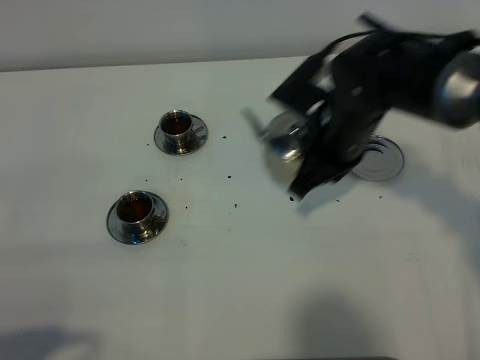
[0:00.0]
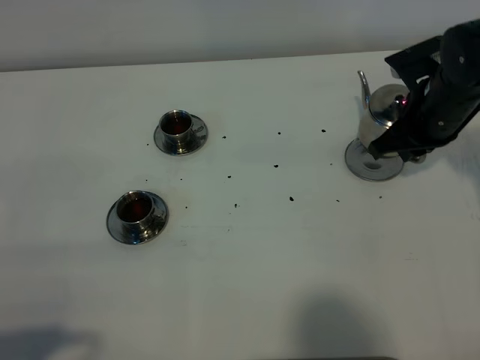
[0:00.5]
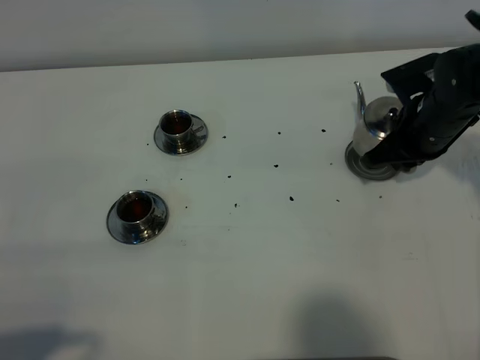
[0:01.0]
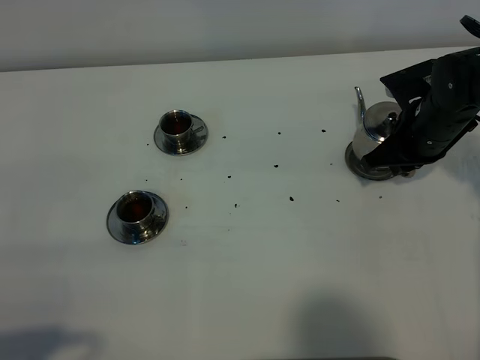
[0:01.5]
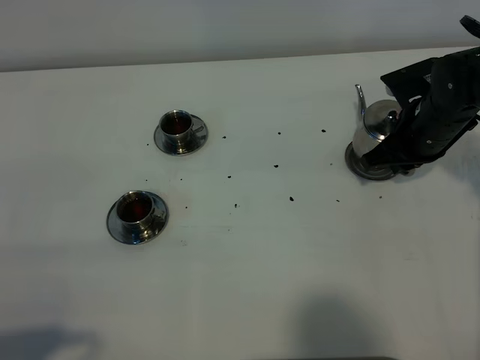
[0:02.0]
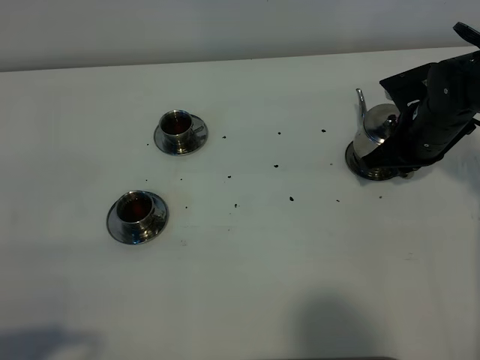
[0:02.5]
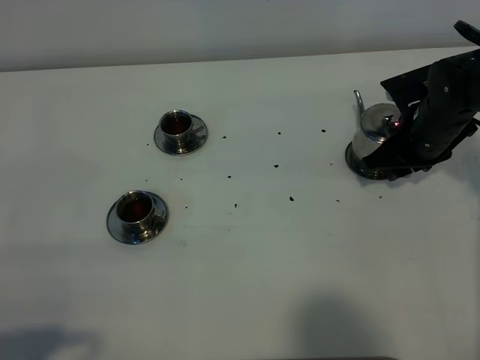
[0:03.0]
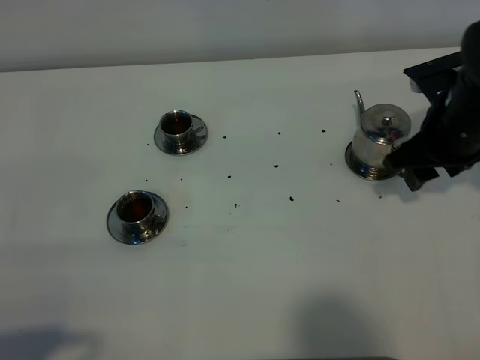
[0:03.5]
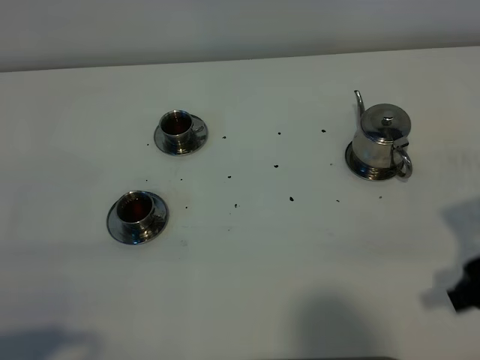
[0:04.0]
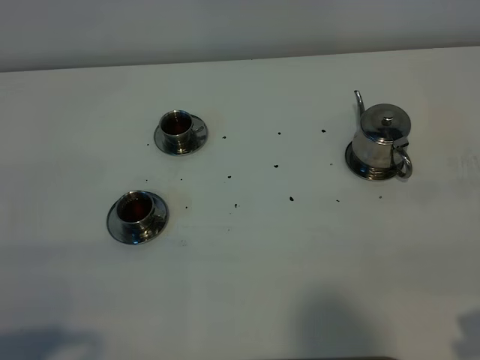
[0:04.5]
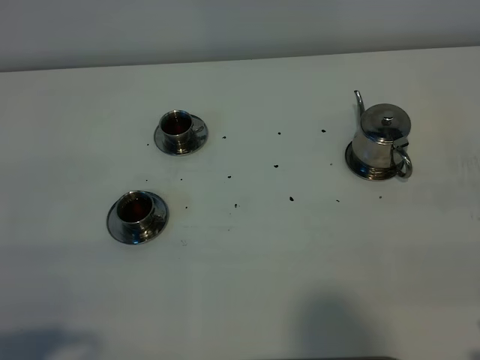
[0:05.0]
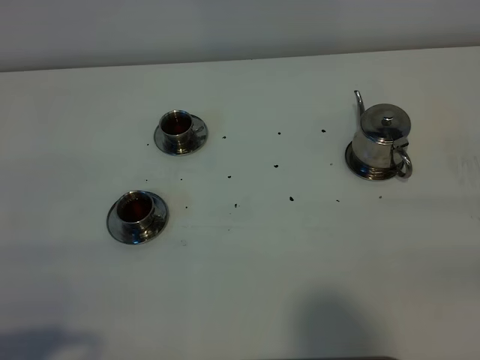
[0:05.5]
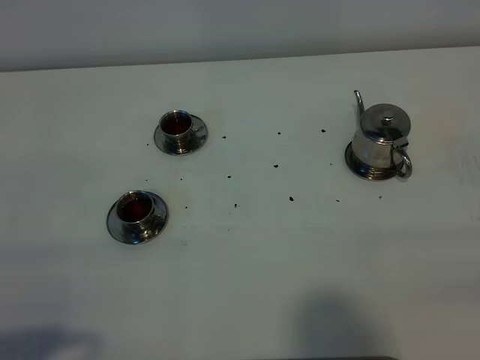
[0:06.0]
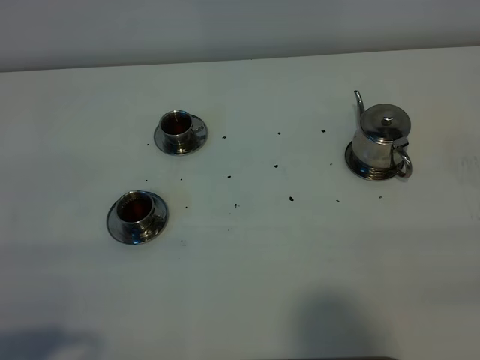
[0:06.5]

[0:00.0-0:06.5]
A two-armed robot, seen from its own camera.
Task of the whole recording: grasp the stainless steel teapot and pour the tea into the two stainless steel teacups one by one, put the stainless steel teapot back in its original place.
0:00.0 to 0:02.0: The right gripper moves to the right and downward, approximately 10 cm.
0:02.0 to 0:04.5: The right gripper goes roughly 30 cm backward, and opens.

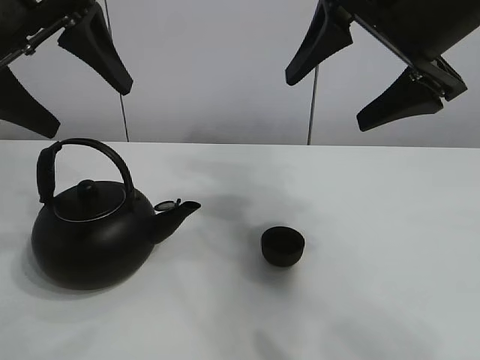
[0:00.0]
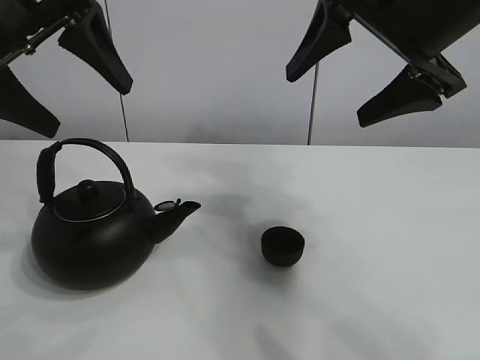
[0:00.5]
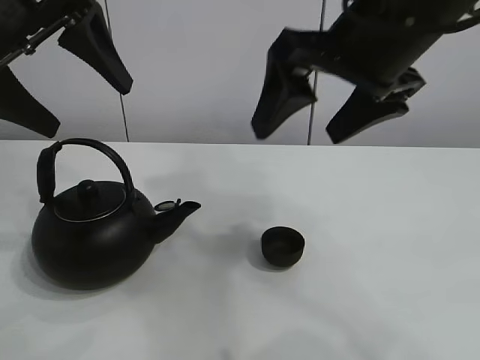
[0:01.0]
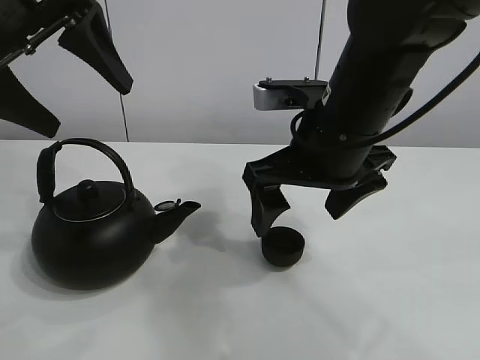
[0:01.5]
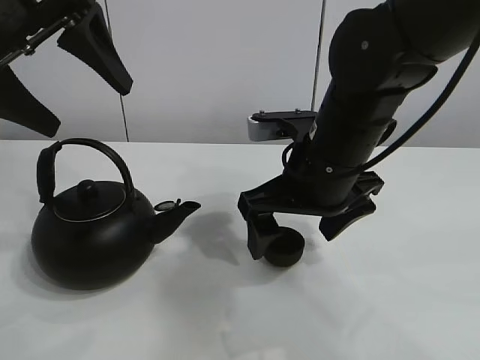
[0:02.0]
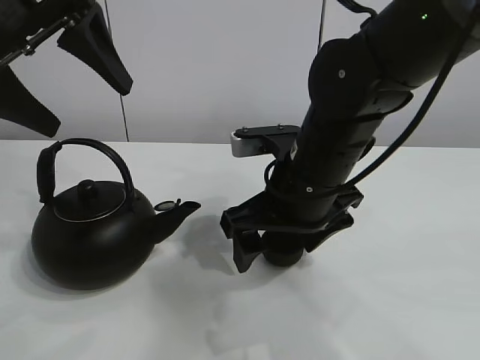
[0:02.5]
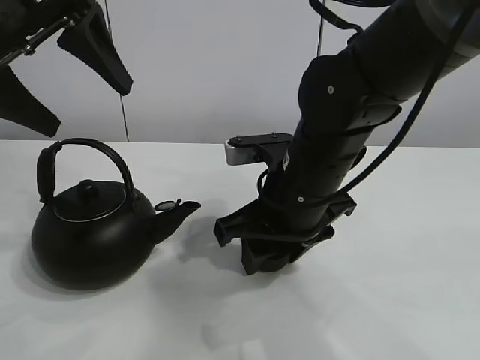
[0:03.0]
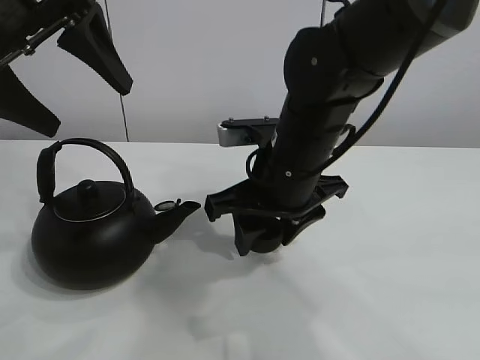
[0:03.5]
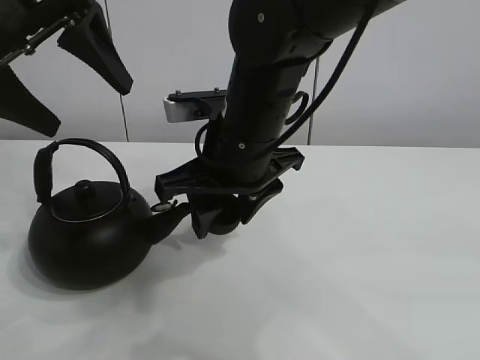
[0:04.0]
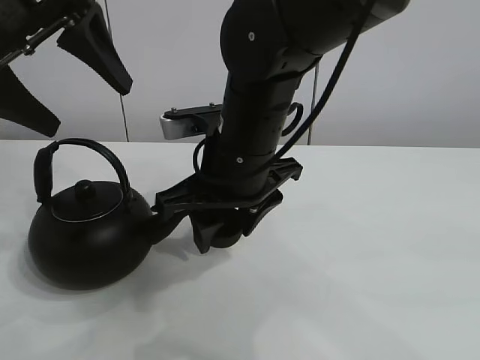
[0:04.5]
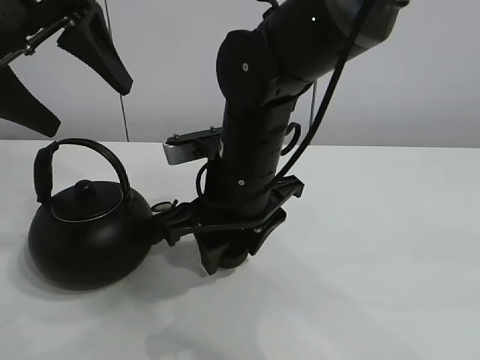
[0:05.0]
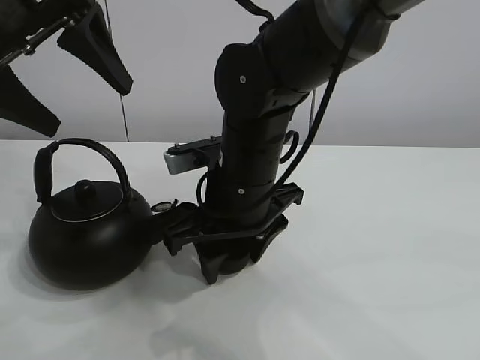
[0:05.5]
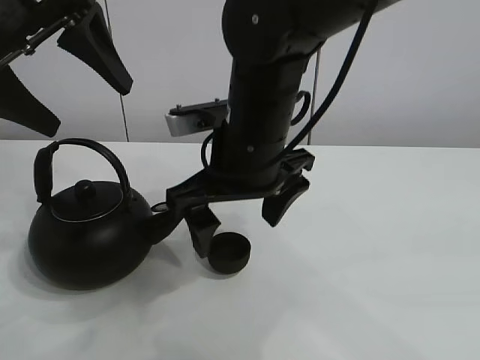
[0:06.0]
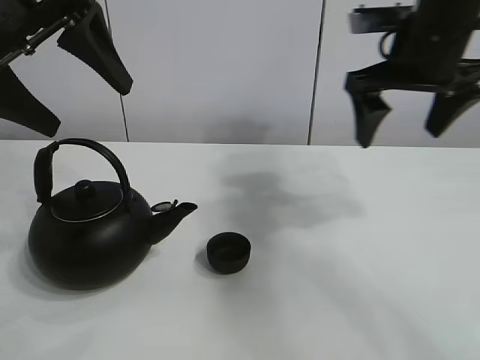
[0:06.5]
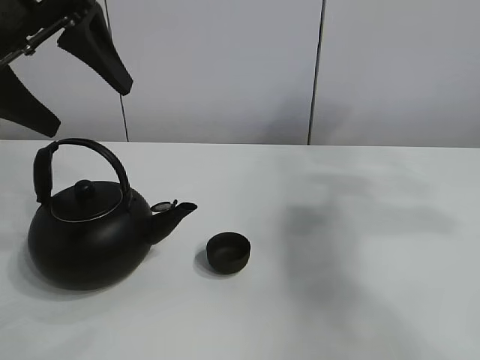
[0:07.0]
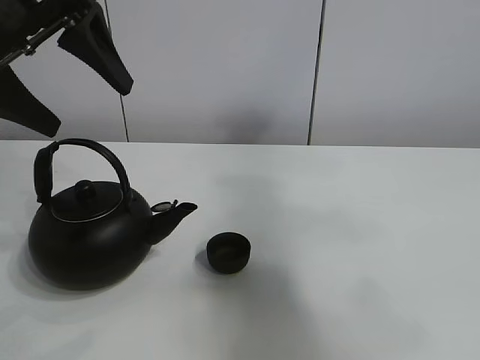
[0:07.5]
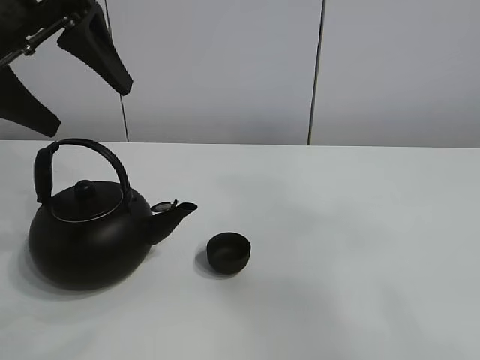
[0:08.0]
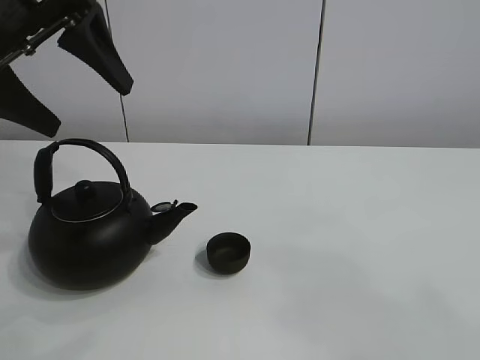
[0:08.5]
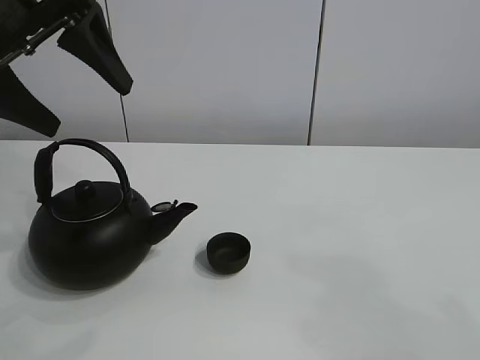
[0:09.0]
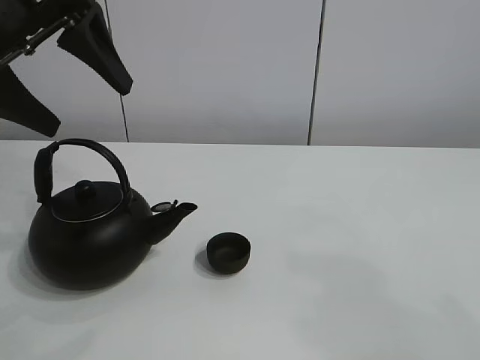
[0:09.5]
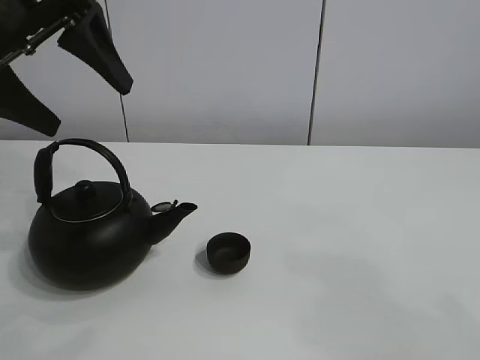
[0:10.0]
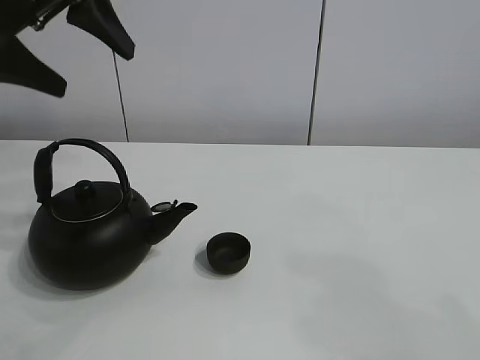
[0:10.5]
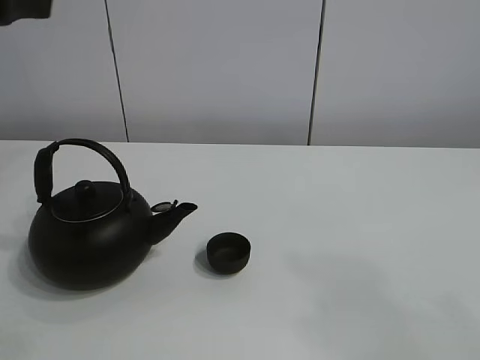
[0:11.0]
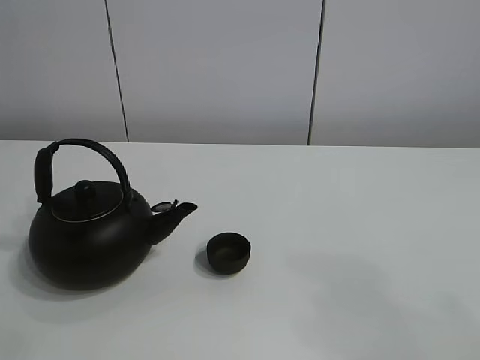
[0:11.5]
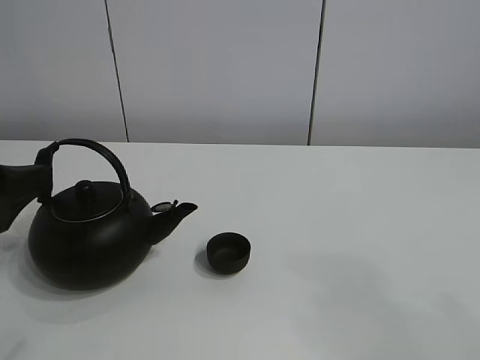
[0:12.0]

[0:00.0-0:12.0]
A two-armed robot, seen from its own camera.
Task of the whole recording: pour tea into the teacup.
Step, 0:00.0 to 0:03.0: Pick up the teacup with the right gripper.
Step, 0:04.0 to 0:05.5: Place the teacup in the center of view with the right gripper.
0:02.0 to 0:04.0: The right gripper shifts roughly 10 cm to the left, and closes up.
0:04.0 to 0:06.0: The right gripper opens its fingers.
0:06.0 to 0:08.0: The right gripper travels backward, to the right and upward by about 50 cm.
0:08.0 to 0:10.0: The right gripper heads downward, covering roughly 10 cm.
0:10.0 to 0:12.0: The left gripper shifts roughly 15 cm downward and backward.

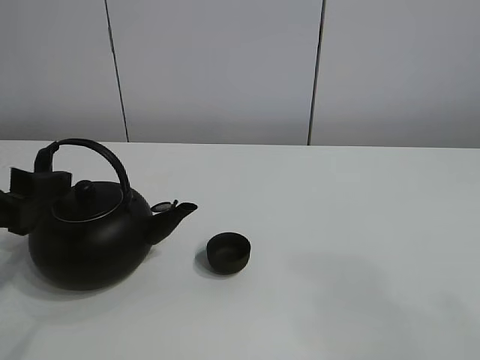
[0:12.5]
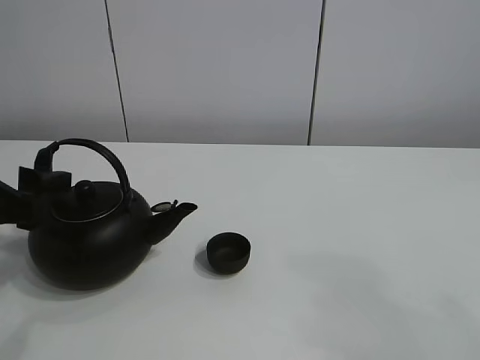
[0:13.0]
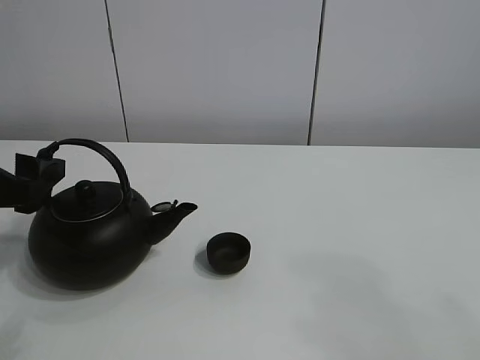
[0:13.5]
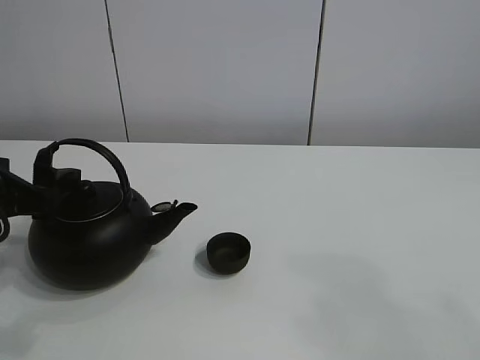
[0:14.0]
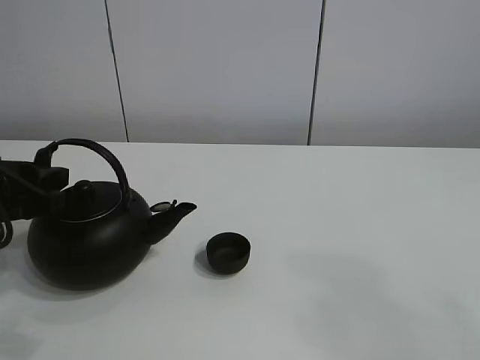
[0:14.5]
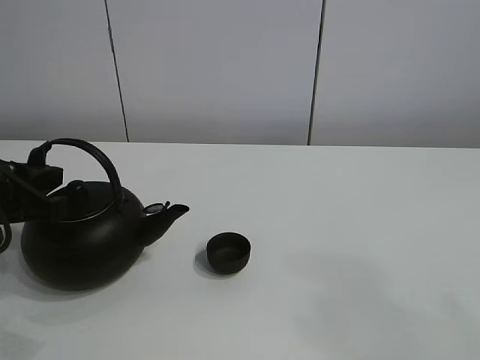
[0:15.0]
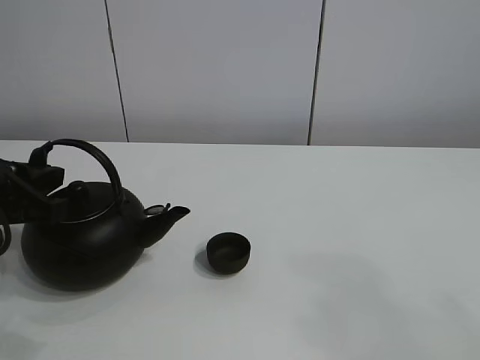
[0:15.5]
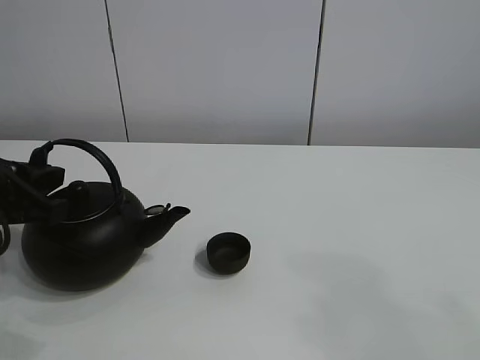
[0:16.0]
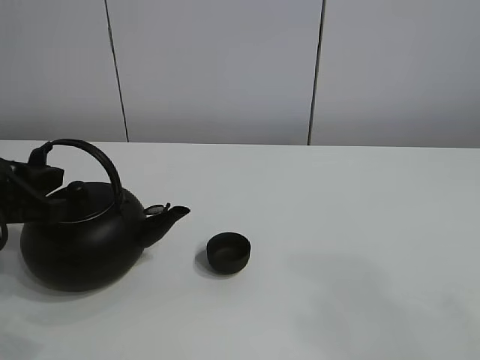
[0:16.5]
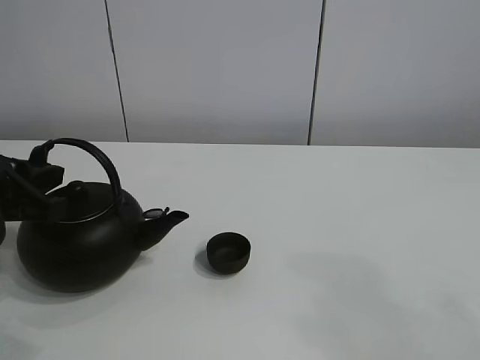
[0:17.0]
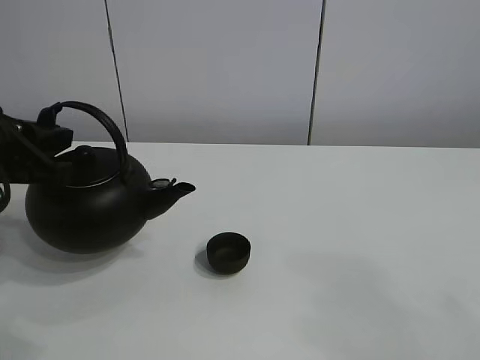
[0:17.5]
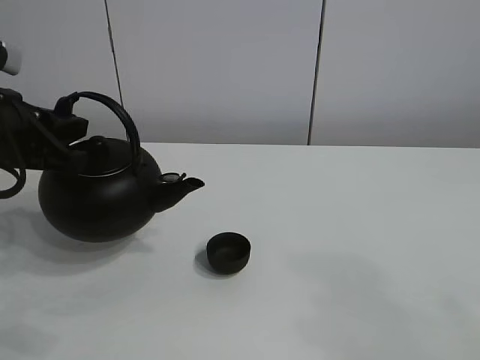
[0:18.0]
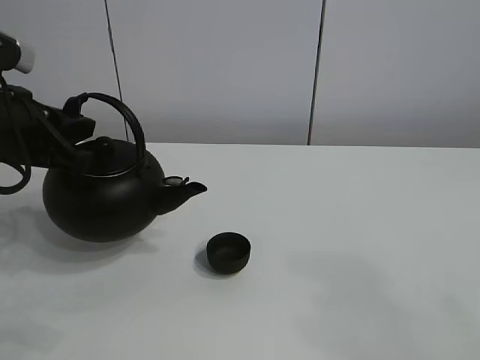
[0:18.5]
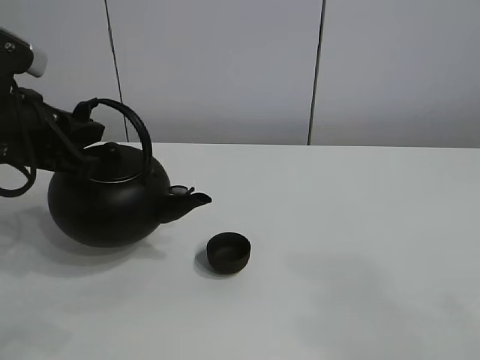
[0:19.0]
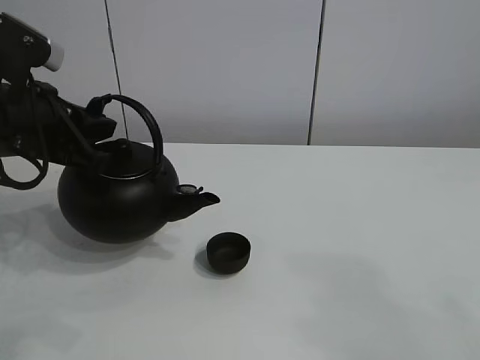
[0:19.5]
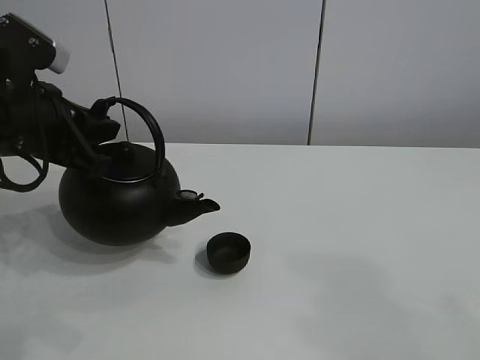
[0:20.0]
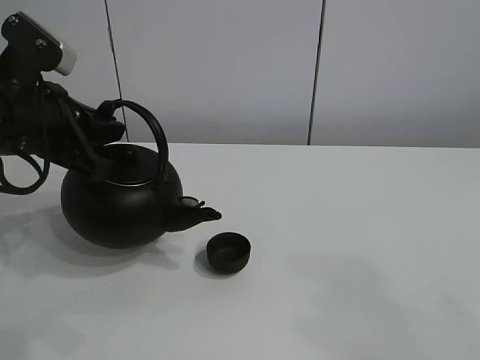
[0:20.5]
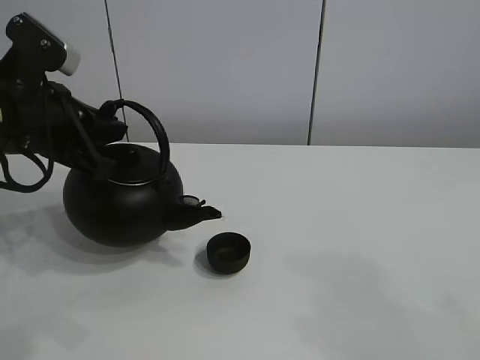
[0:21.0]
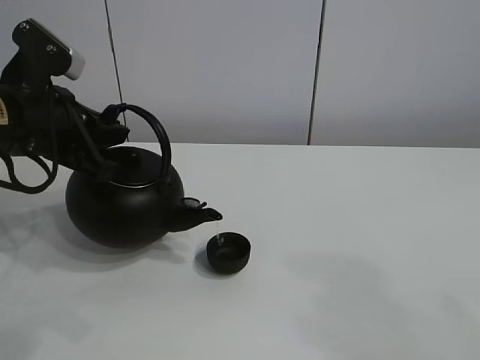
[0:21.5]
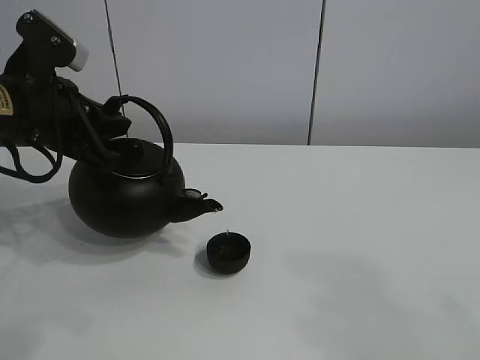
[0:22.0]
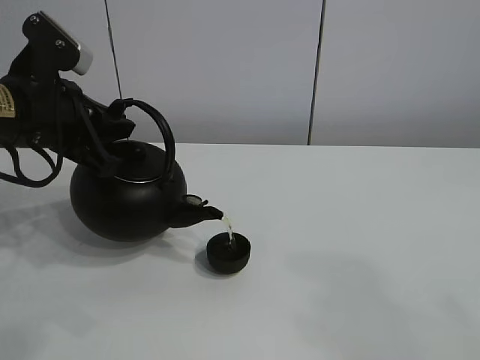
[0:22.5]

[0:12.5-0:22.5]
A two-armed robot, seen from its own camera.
Task of the whole recording: pour tea into the teacup.
Step, 0:12.5 to 0:17.0: Pick up the teapot with the left gripper.
0:12.5 to 0:14.5: The left gripper closes.
0:14.5 to 0:16.5: The grippers move only a little.
0:16.5 to 0:18.5: The left gripper ends up approximately 5 cm from where it was.
0:18.5 to 0:22.5: The grippers move only a little.
